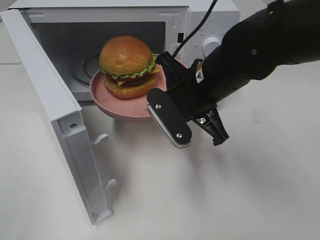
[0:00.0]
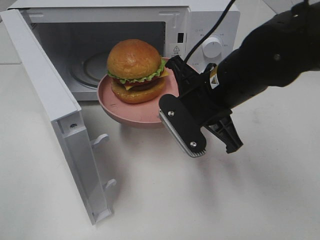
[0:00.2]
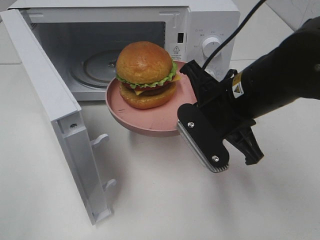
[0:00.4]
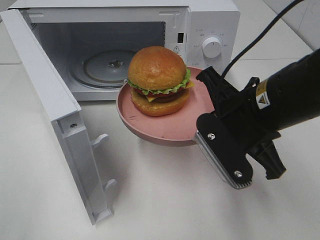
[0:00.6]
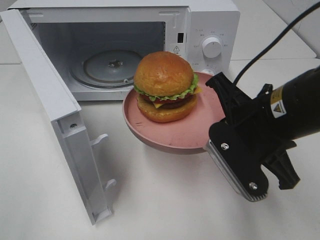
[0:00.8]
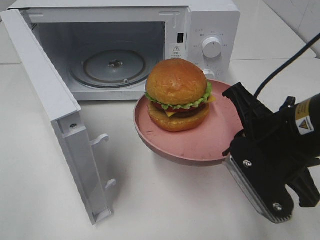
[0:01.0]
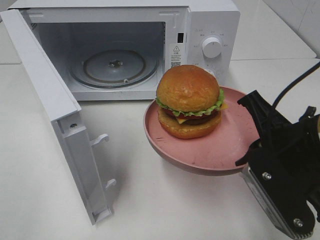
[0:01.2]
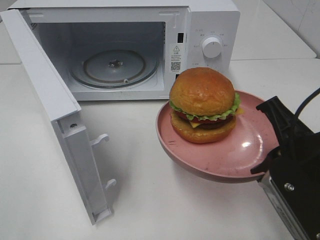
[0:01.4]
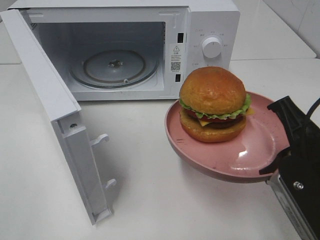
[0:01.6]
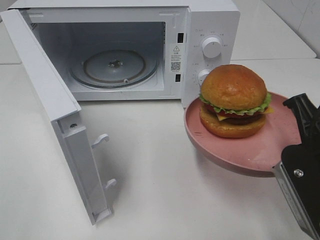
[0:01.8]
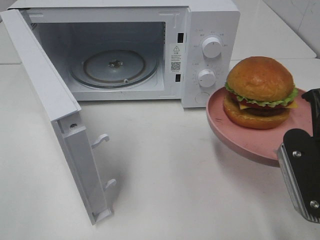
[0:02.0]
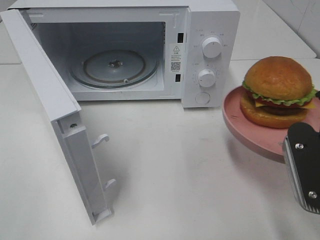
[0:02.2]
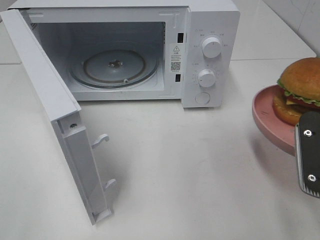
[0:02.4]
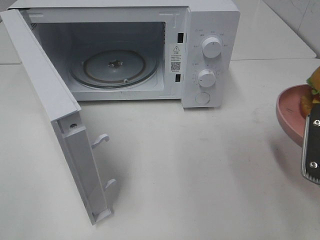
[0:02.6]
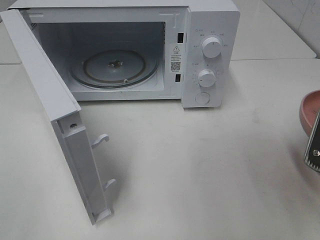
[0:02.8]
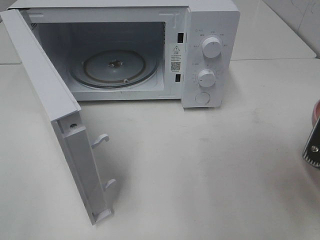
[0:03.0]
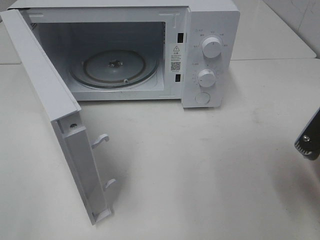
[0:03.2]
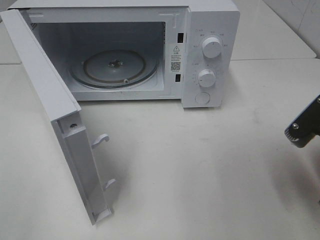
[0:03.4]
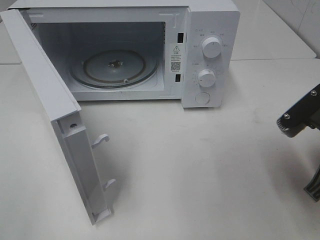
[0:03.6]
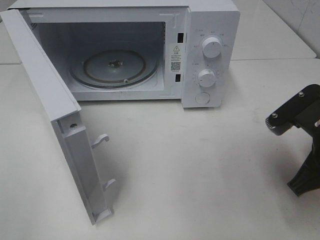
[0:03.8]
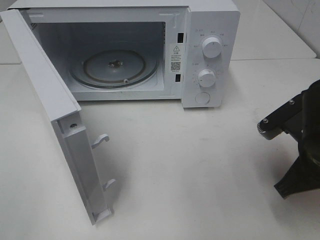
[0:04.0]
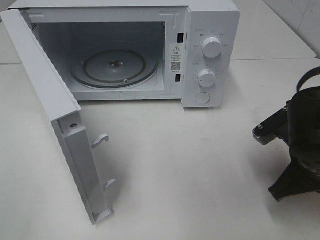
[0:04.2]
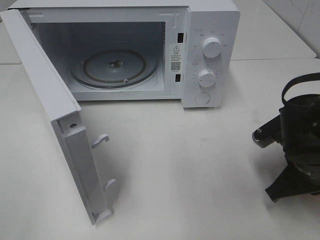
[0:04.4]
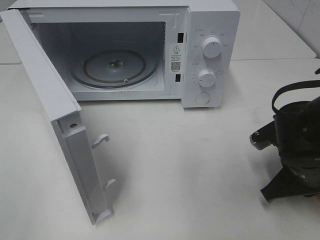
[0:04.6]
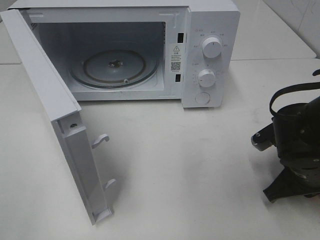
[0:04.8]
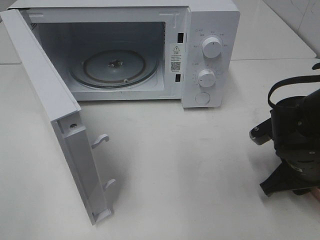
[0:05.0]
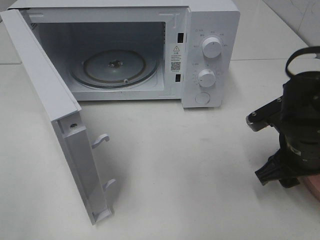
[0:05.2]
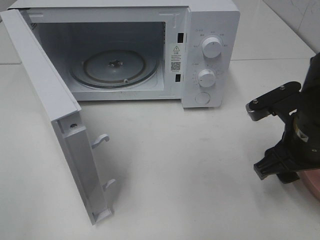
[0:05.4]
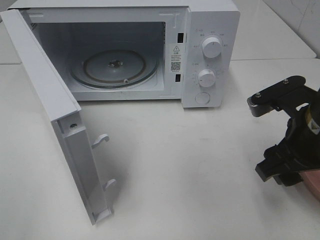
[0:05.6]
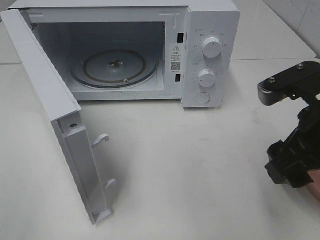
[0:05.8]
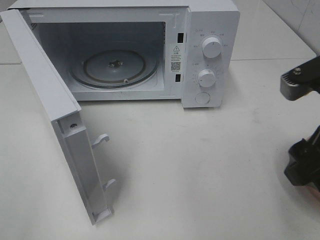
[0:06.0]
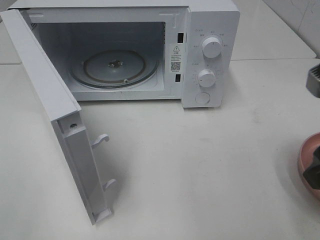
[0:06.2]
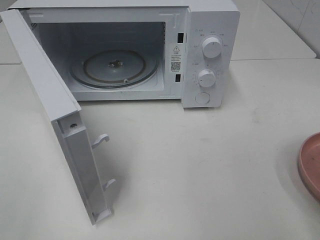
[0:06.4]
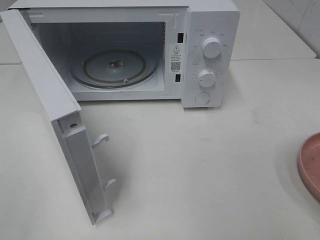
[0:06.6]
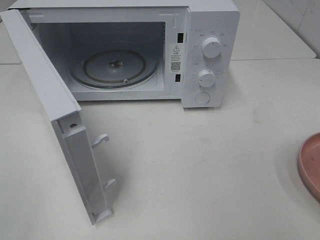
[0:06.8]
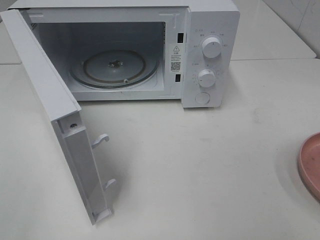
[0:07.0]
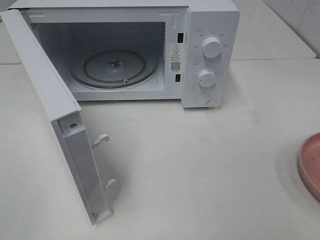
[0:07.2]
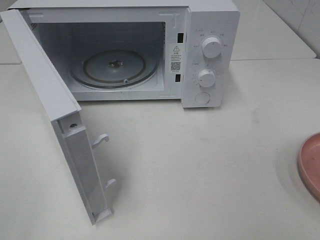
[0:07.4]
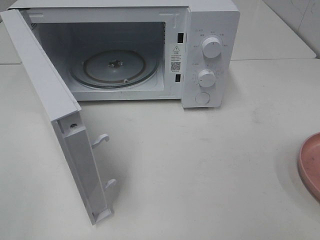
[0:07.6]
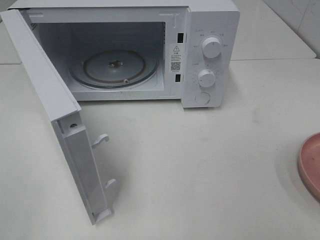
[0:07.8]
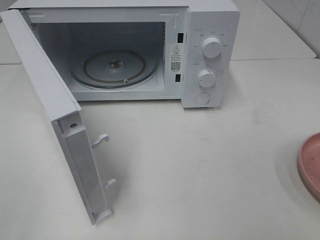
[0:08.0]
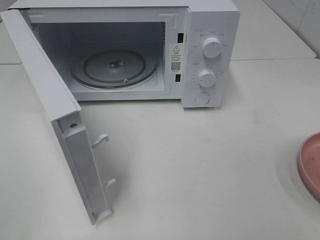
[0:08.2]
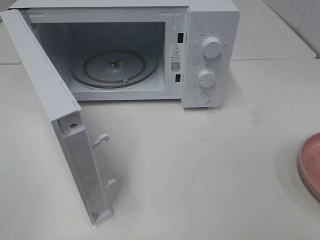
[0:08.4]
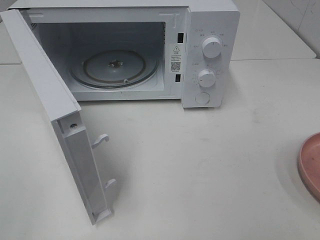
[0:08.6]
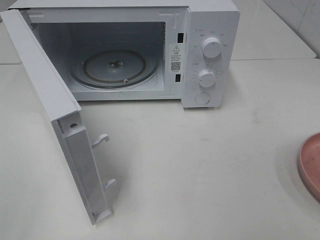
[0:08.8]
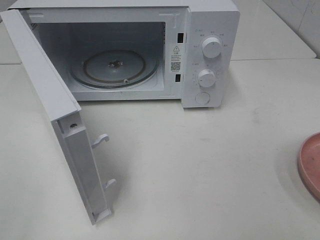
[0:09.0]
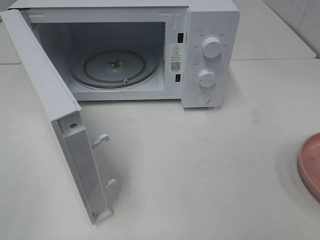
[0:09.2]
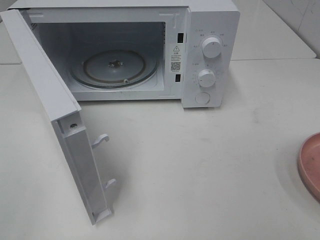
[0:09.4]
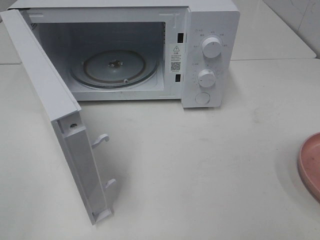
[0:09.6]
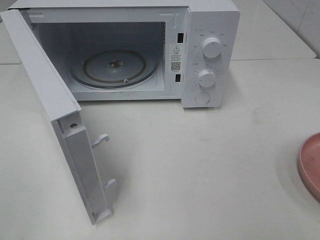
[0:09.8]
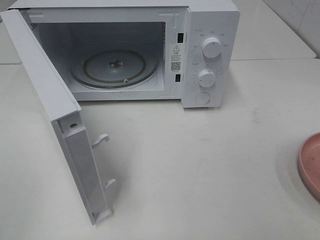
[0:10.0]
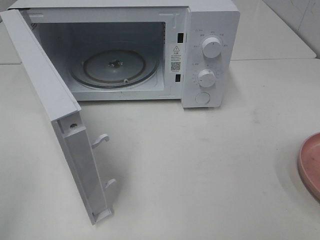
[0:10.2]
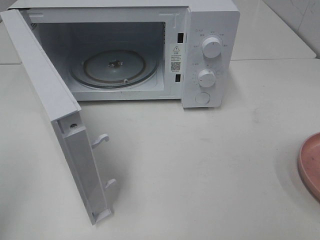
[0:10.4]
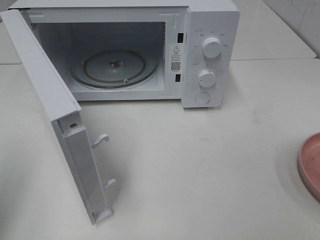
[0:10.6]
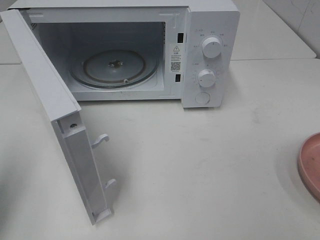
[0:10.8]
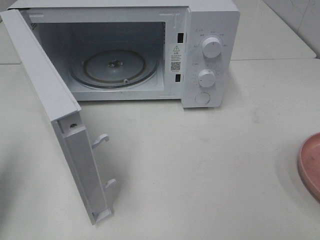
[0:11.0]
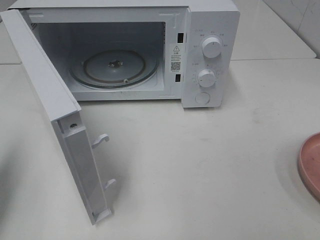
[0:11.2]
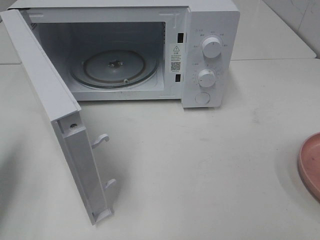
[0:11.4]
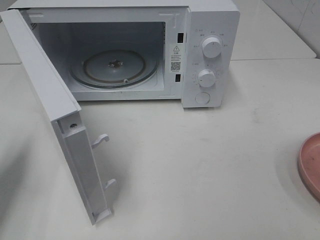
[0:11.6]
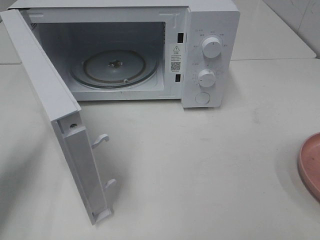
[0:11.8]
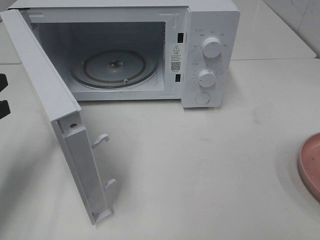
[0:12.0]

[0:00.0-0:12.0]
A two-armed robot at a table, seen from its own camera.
Task of the whole recording: Heat the burger.
Step, 0:00.0 to 0:05.2: Right hand: place the plate on the table.
0:00.0 to 0:01.6: The right gripper goes about 20 cm backward and to the right.
0:01.6 to 0:03.0: The right gripper goes roughly 5 cm to the right.
0:03.0 to 0:04.4: The right gripper shifts approximately 10 cm downward and forward.
0:04.4 to 0:06.0: The right gripper shifts roughly 15 cm upward, and opens up.
0:06.0 to 0:07.6: The right gripper moves backward and to the right, some 15 cm.
0:10.4 to 0:12.0: The left gripper shifts roughly 20 cm forward and downward.

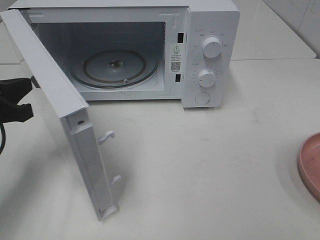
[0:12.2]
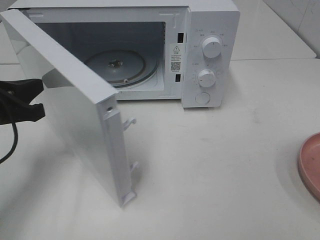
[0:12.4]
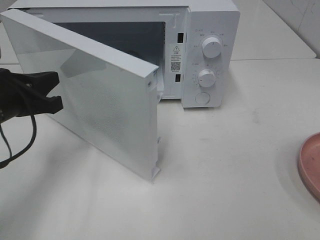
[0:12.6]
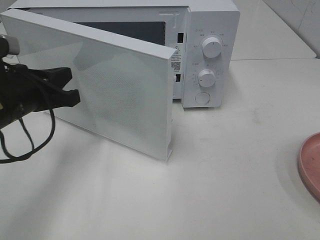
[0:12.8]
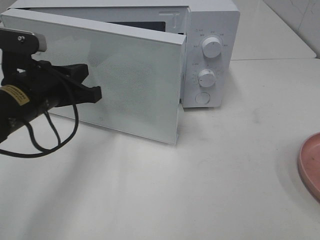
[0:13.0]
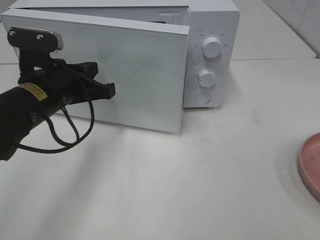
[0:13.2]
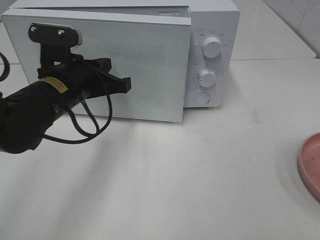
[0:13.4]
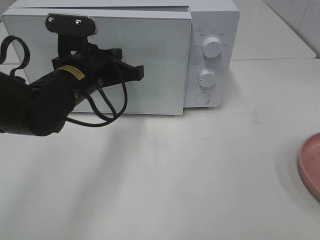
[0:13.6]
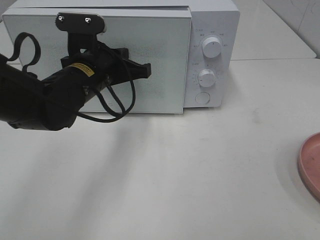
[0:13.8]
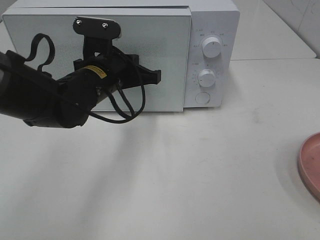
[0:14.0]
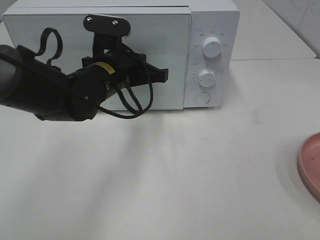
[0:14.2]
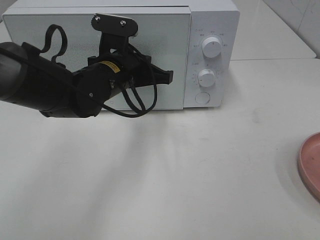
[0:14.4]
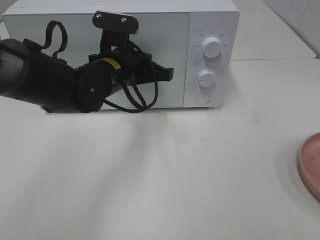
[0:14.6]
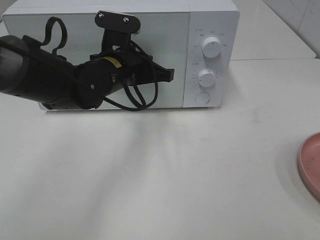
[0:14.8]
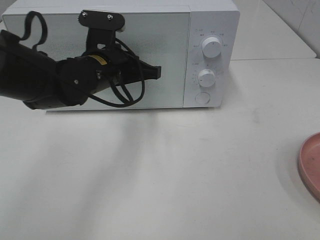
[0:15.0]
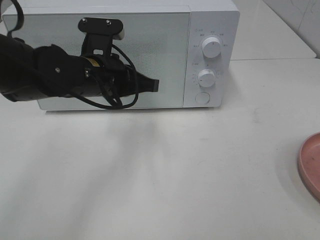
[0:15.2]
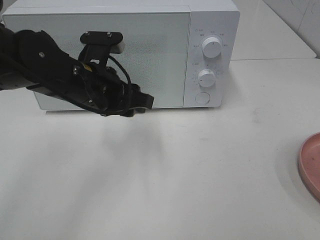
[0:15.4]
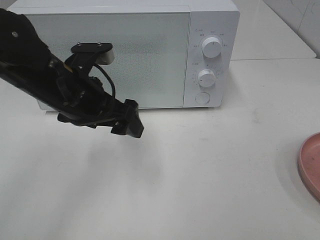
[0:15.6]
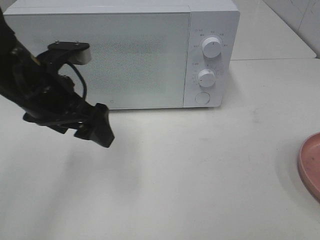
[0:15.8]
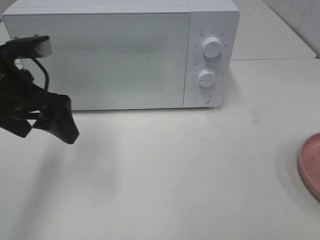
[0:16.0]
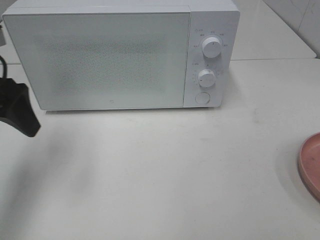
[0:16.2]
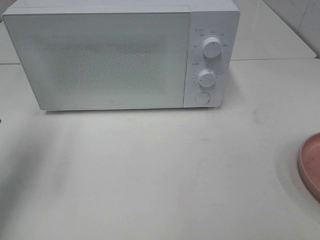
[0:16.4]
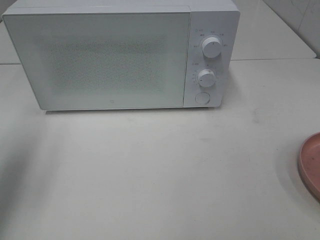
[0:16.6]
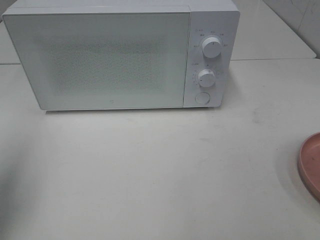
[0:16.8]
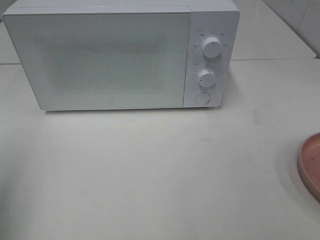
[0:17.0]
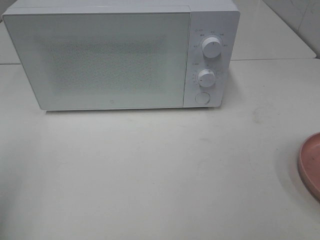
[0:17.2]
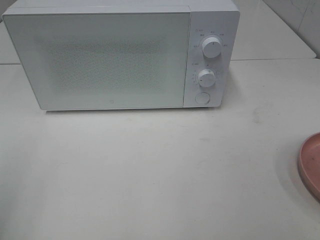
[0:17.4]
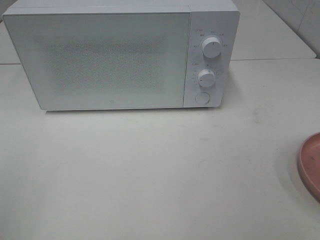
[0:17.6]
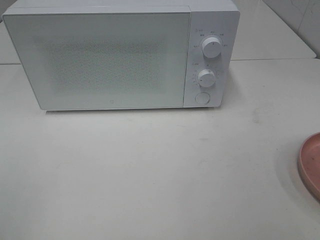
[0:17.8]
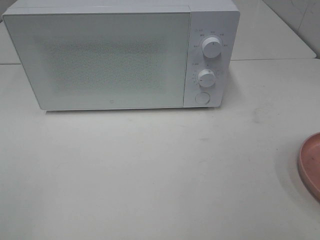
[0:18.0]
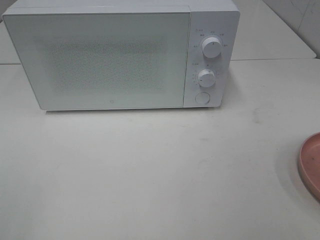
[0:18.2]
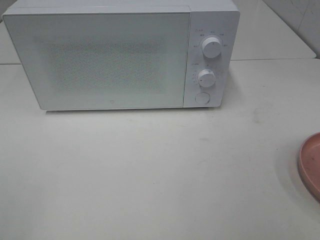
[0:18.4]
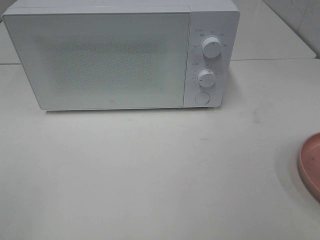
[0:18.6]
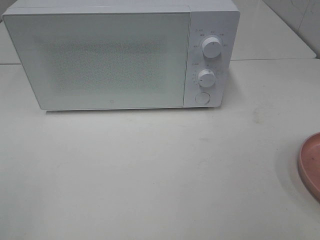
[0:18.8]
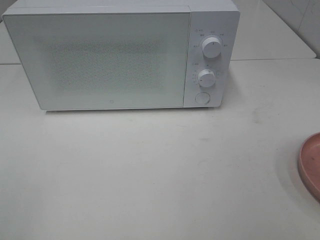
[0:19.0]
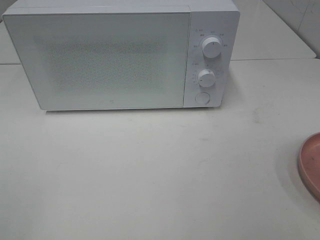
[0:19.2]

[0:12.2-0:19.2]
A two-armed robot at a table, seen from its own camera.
Task of the whole recording: Heat the burger.
Step, 0:12.2 to 0:15.4: Left hand: close the microwave door.
0:12.2 to 0:13.6: The left gripper is displaced to the right and forward by about 15 cm.
0:13.6 to 0:15.0: The grippers stay close to where they were, moving slightly.
0:15.0 to 0:16.4: The left gripper travels to the left, upward and backward by approximately 25 cm, and opens up.
0:16.4 to 0:17.8: The left gripper is displaced backward by about 25 cm.
